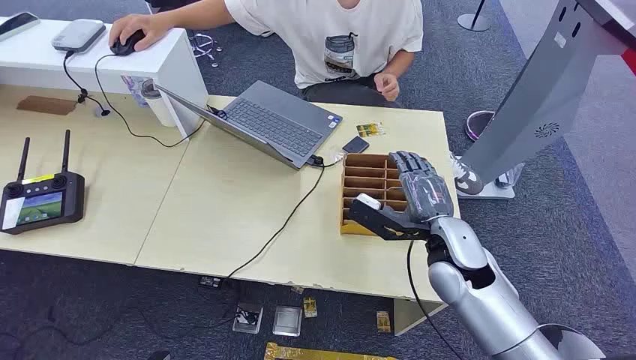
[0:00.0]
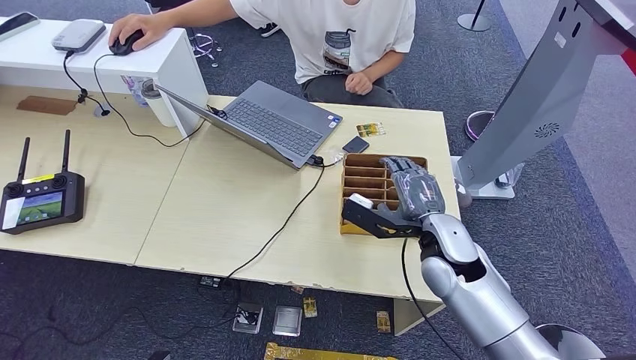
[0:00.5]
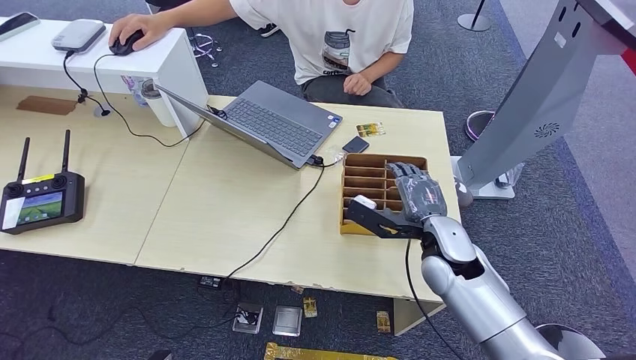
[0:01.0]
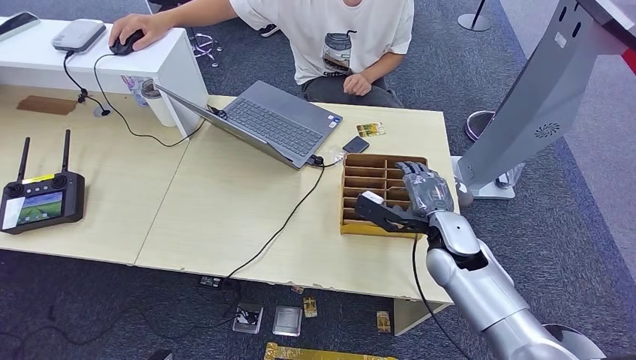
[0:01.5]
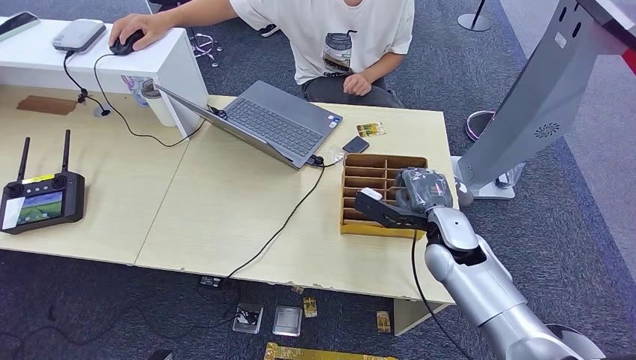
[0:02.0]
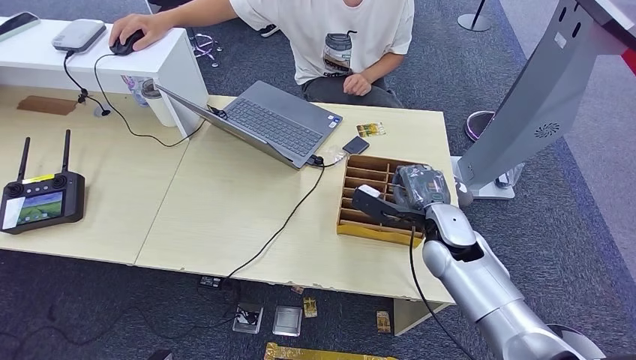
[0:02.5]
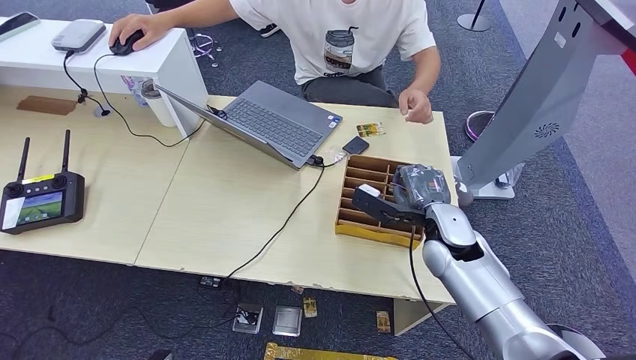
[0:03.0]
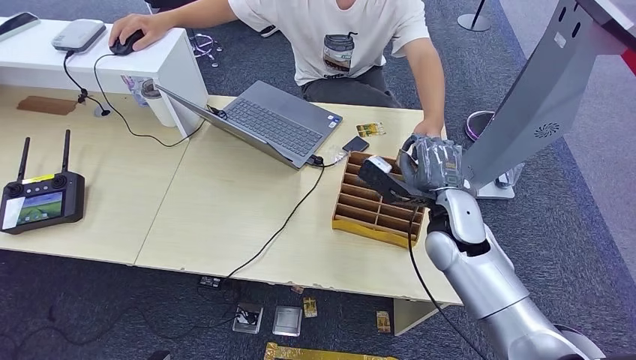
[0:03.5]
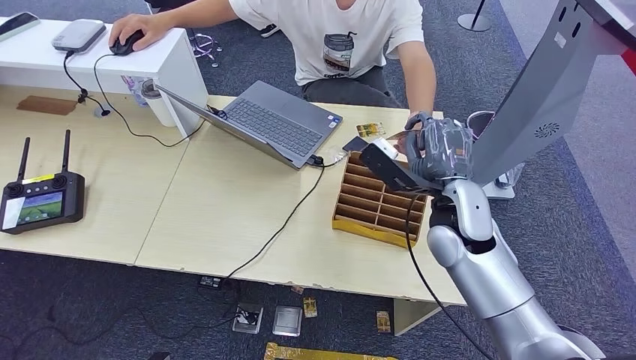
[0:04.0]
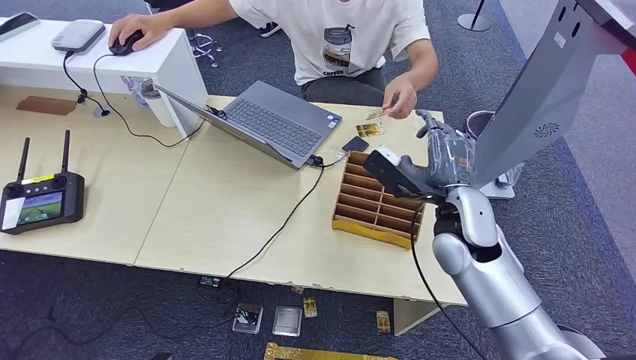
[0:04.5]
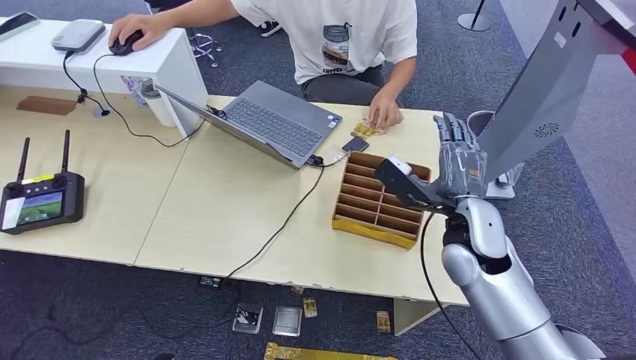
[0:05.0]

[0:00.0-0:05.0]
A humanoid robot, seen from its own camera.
Task of the whole recording: Pick up the card and hand it over to the target person.
Step, 0:00.0 to 0:02.5: Pick up the key card from the card box.
Step, 0:03.0 to 0:04.5: Hand the key card to the target.
0:02.5 to 0:05.0: The right hand heads upward, covering approximately 5 cm.

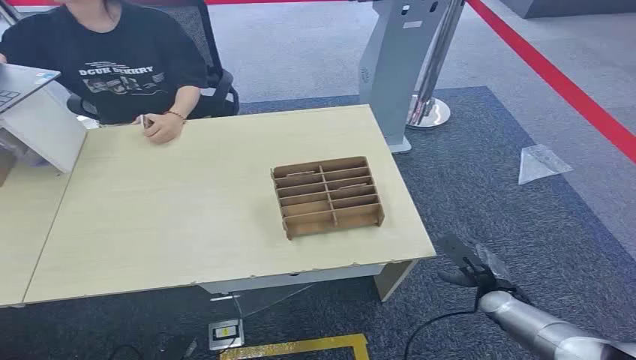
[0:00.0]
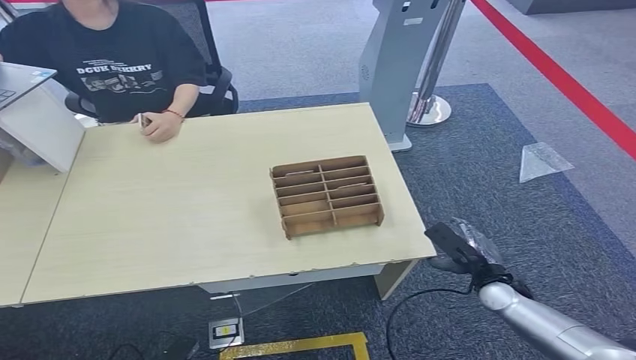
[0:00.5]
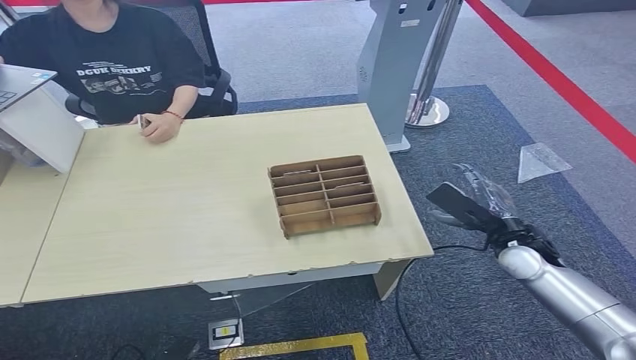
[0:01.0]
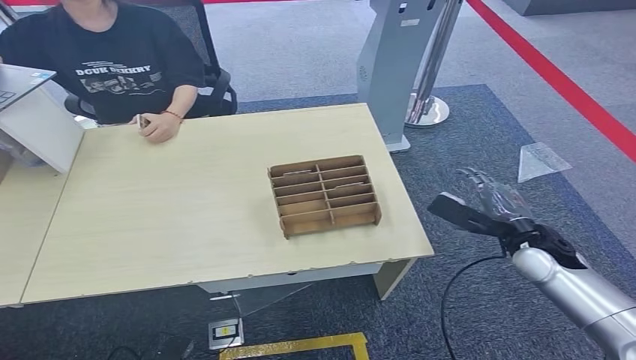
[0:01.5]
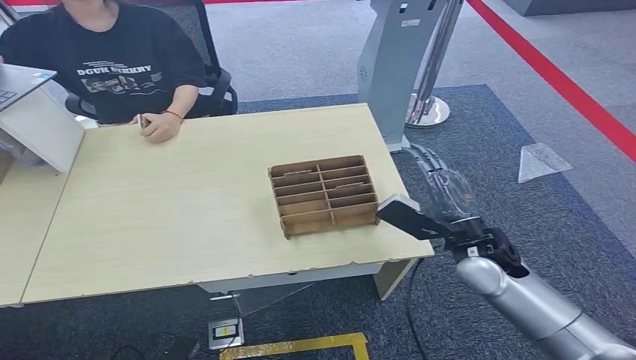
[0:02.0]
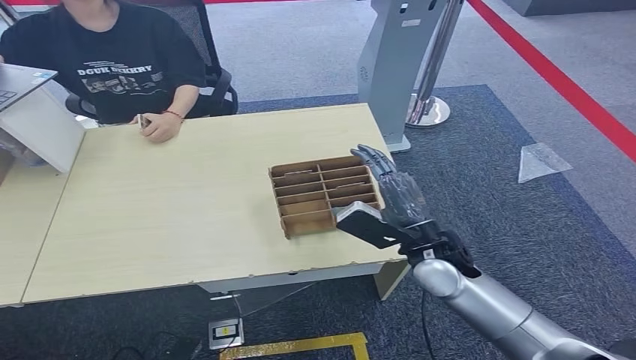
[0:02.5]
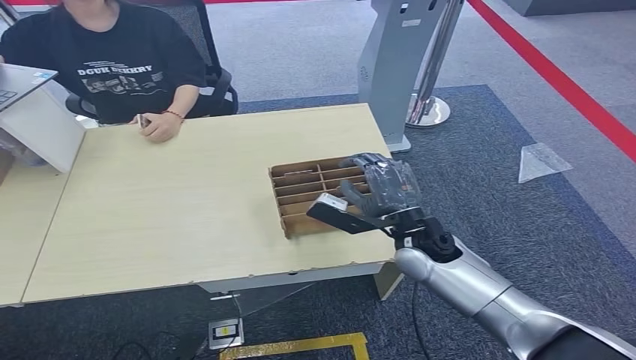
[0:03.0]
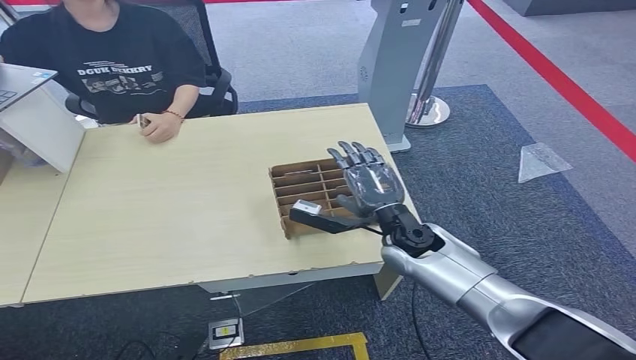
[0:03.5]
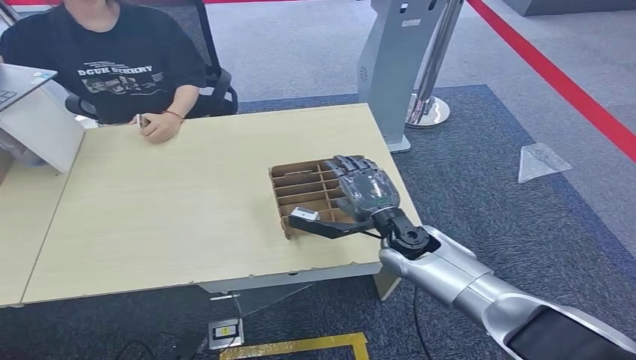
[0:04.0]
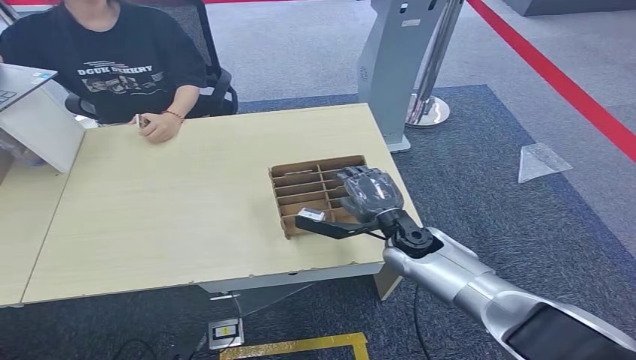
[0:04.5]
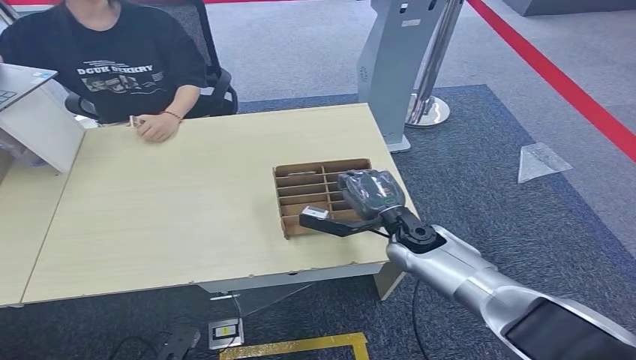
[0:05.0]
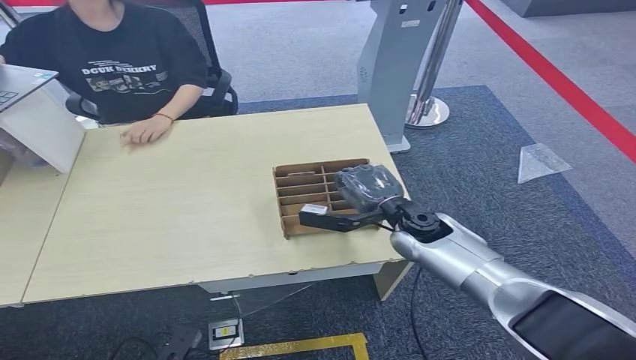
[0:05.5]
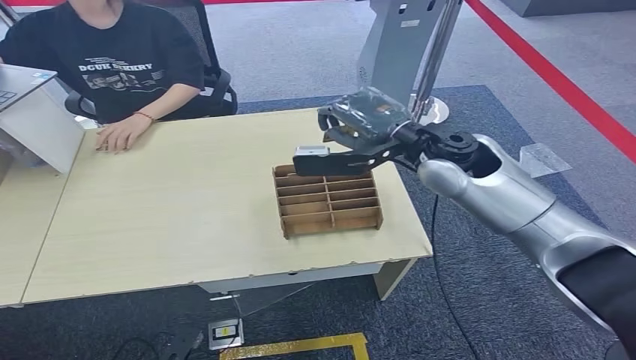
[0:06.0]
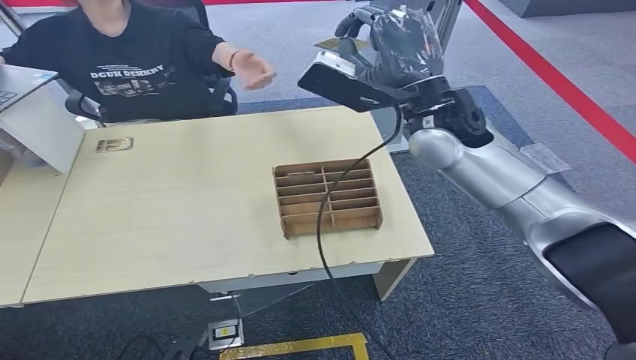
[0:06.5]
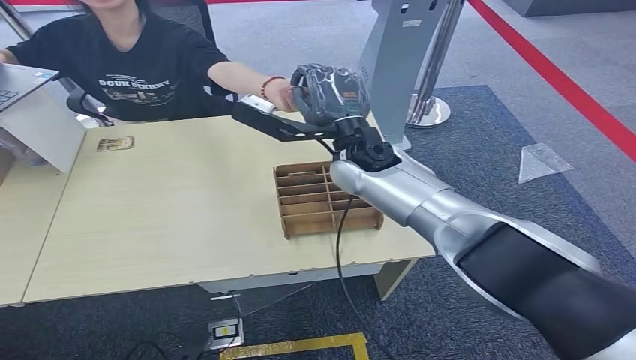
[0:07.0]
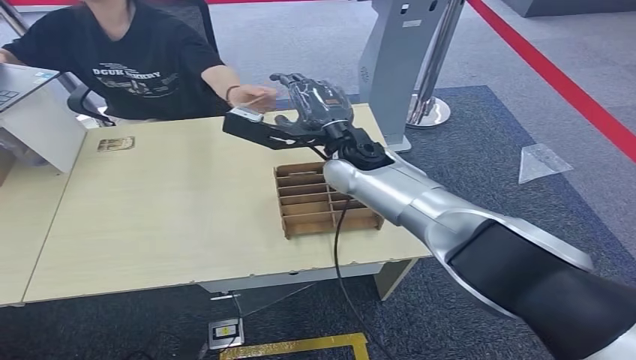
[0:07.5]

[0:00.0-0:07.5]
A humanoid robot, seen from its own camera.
Task of the whole recording: Pick up the card and hand it over to the target person.
Step, 0:00.0 to 0:05.5: Pick up the key card from the card box.
Step, 0:06.5 to 0:07.5: Hand the key card to the target.
0:02.0 to 0:04.0: The right hand heads forward and downward, covering approximately 10 cm.
0:04.0 to 0:05.5: The right hand shifts approximately 10 cm upward.
0:05.5 to 0:07.5: The right hand swings up and down, approximately 25 cm each way, with 2 reversals.
